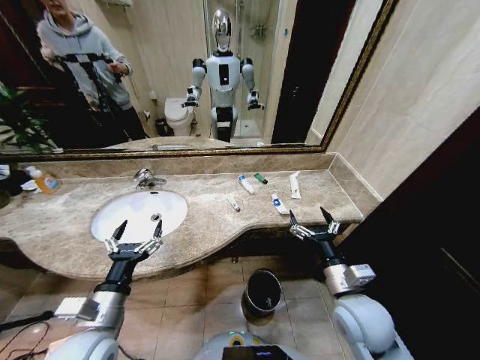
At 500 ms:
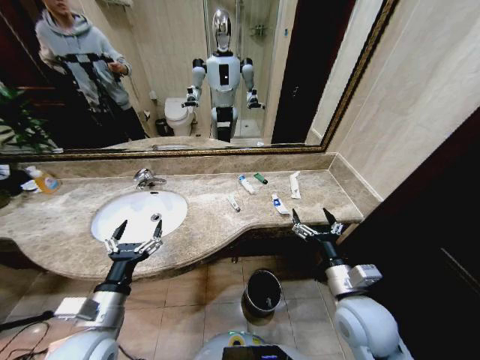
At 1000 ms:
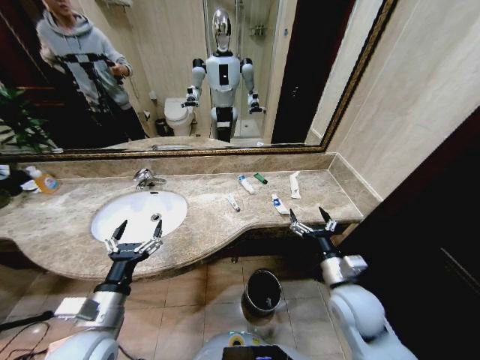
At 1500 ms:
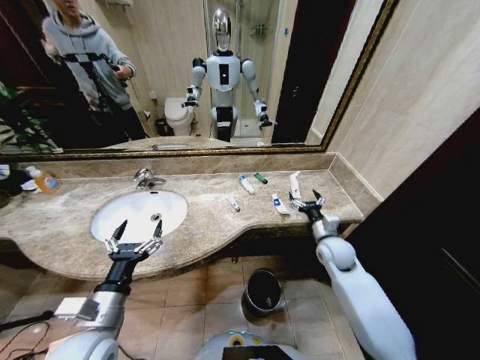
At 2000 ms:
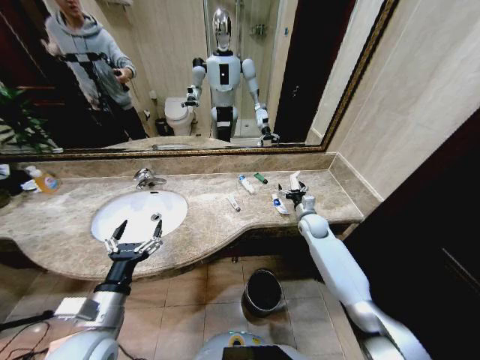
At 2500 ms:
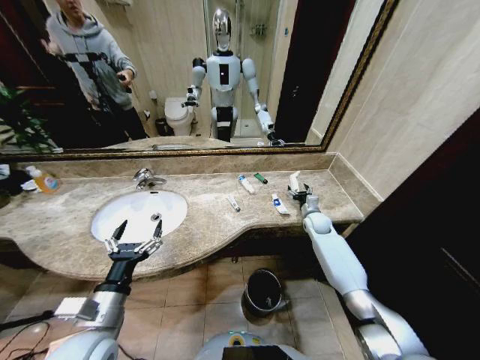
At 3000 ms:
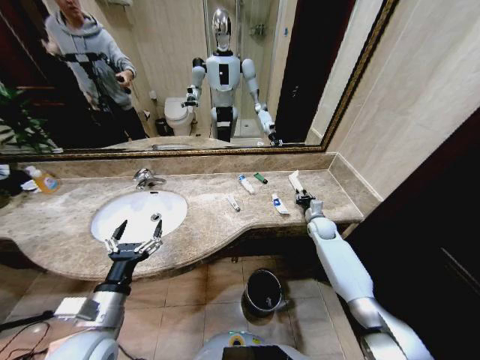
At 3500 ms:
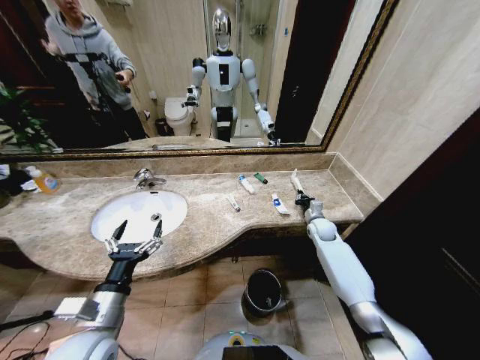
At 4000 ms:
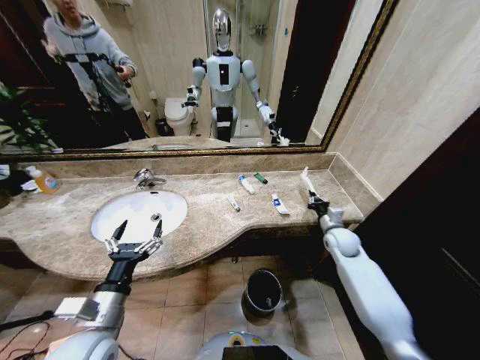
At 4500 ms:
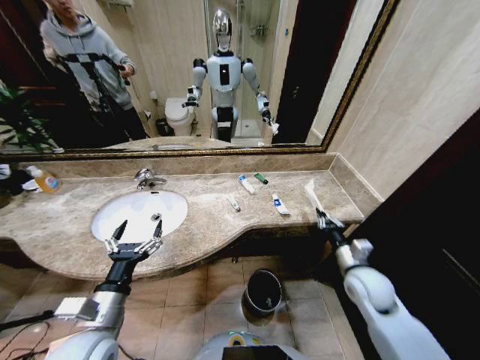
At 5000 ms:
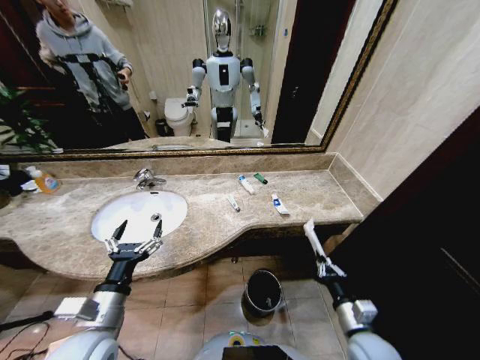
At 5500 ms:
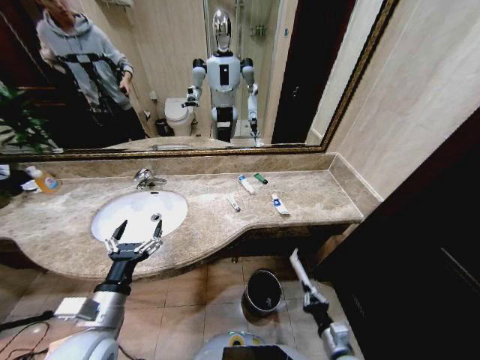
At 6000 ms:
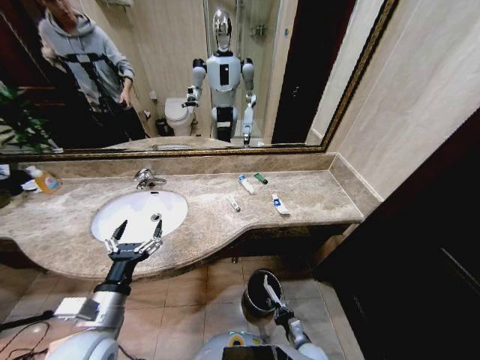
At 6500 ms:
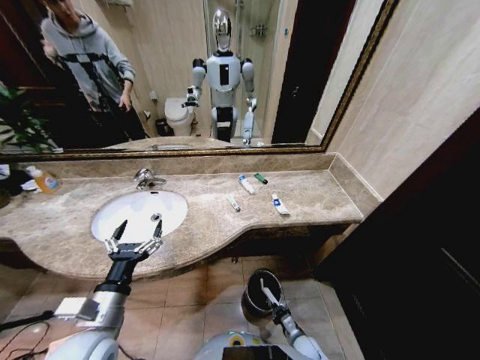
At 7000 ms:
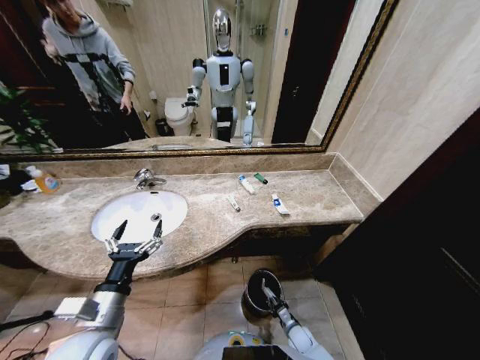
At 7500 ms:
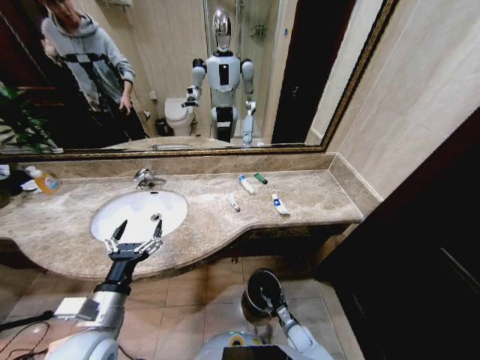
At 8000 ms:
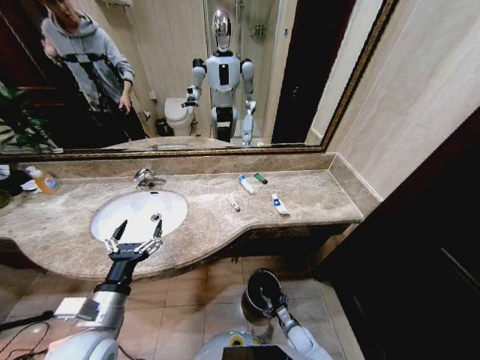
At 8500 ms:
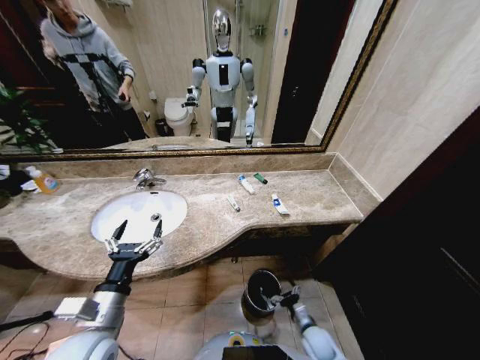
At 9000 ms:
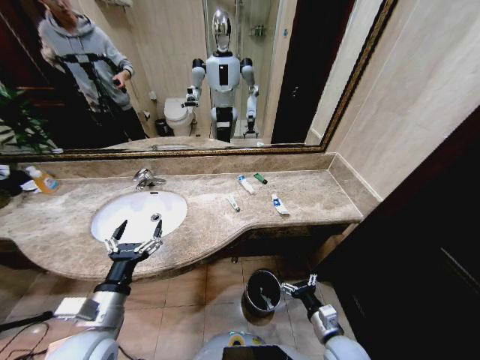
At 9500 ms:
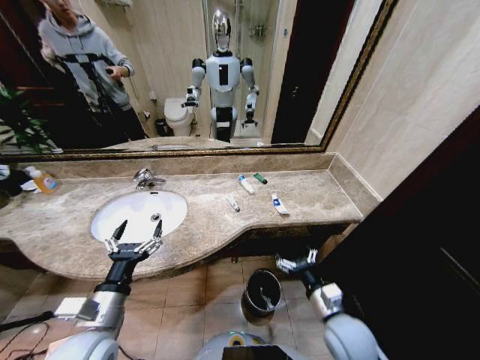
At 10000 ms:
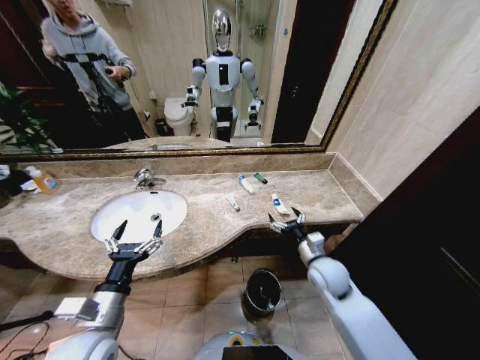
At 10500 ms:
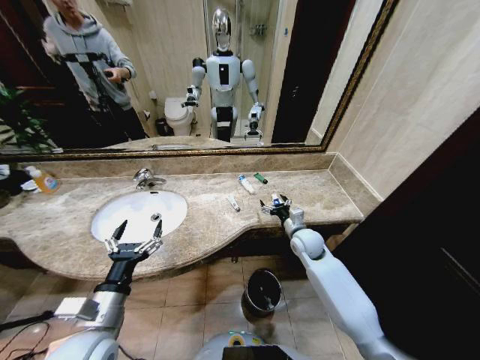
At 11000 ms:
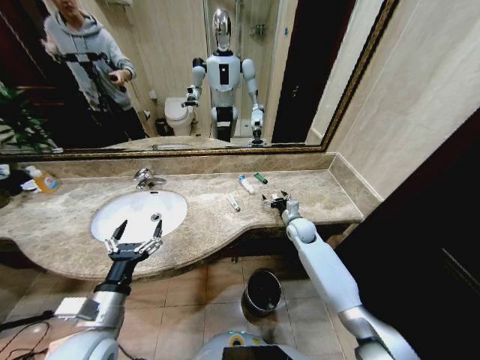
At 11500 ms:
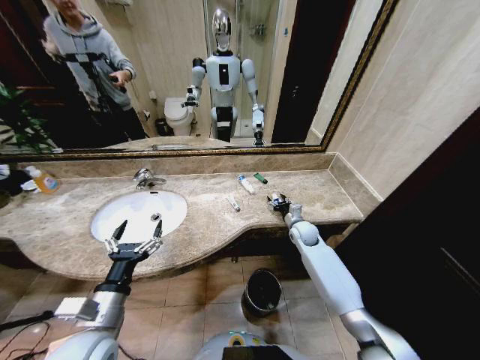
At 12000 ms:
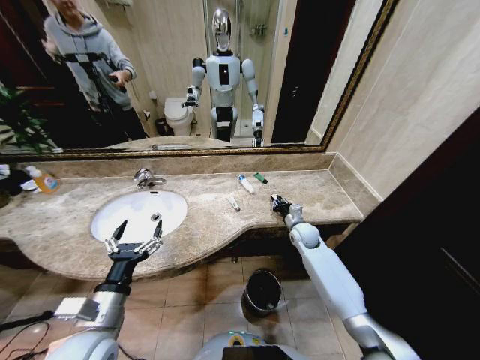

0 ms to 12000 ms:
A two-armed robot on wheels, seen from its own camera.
Task of the whole recording: Pick up the trash from the sink and place it in the trash bin.
2000 ms to 4000 ms: The right gripper heads backward and to the right, covering about 10 cm, and closes.
4000 ms to 6000 ms: The right gripper shifts approximately 40 cm backward, downward and to the left.
6000 ms to 8000 ms: The right gripper travels forward and downward by roughly 10 cm, and opens up.
8000 ms to 10000 ms: The right gripper goes some 35 cm upward.
10000 ms to 12000 ms: The right gripper travels forward by approximately 15 cm, and closes its fingers.

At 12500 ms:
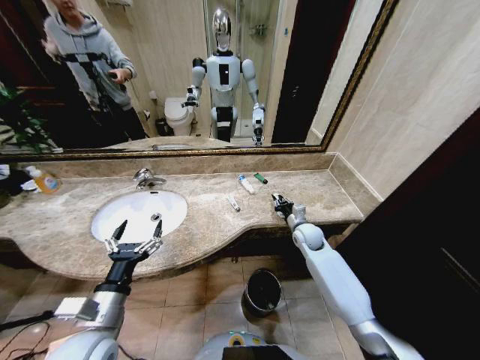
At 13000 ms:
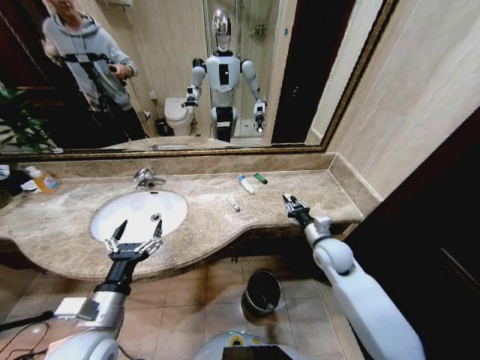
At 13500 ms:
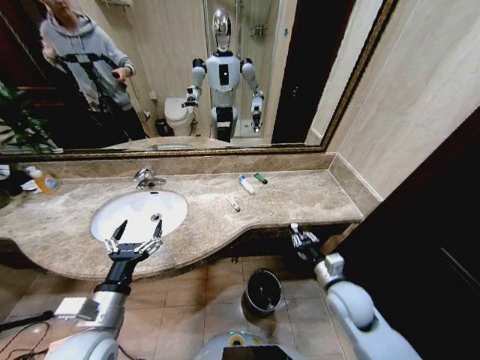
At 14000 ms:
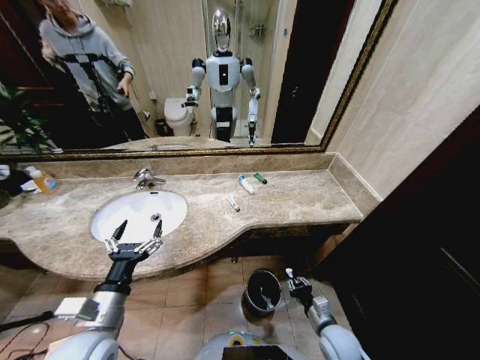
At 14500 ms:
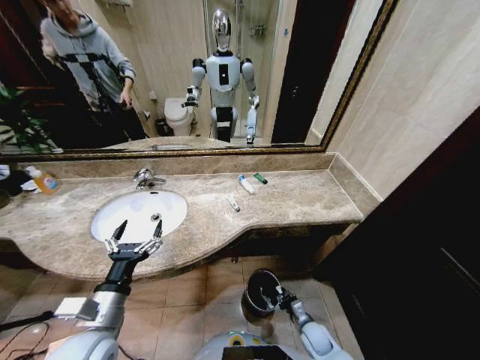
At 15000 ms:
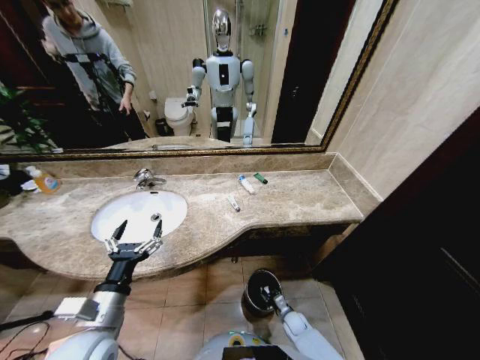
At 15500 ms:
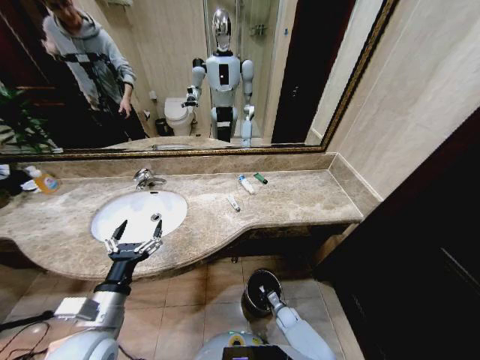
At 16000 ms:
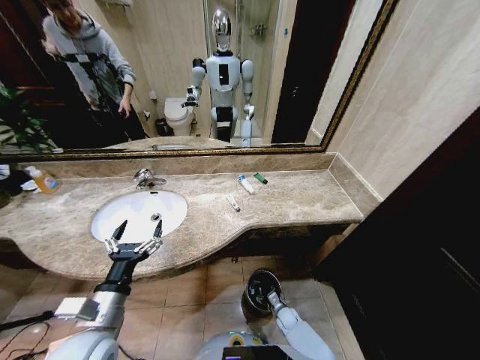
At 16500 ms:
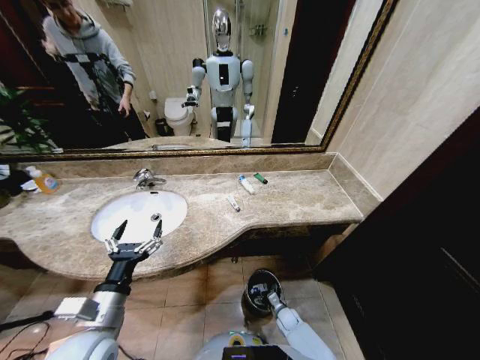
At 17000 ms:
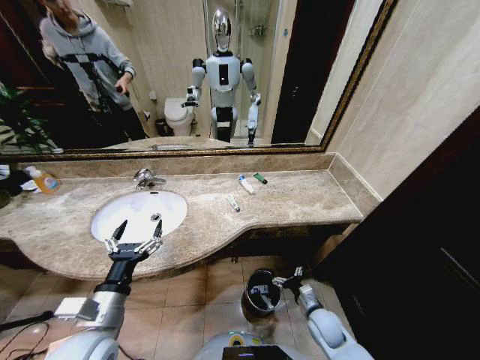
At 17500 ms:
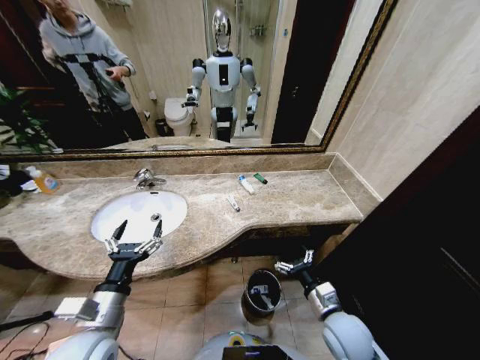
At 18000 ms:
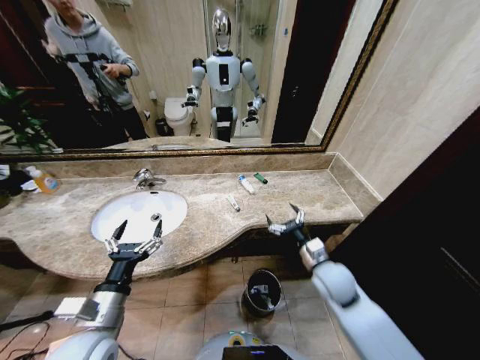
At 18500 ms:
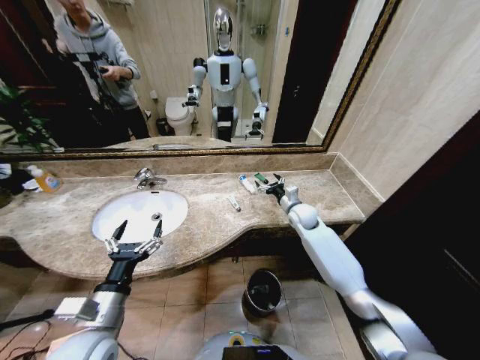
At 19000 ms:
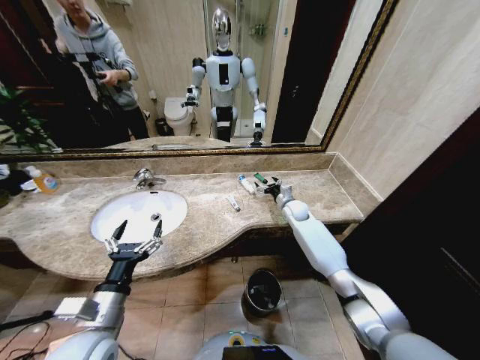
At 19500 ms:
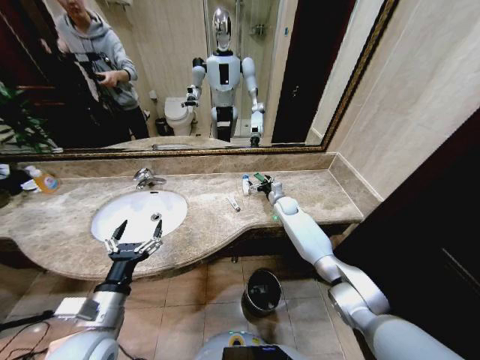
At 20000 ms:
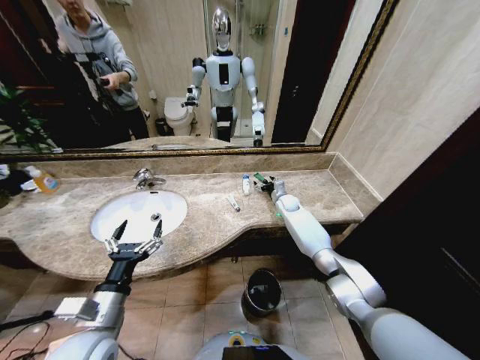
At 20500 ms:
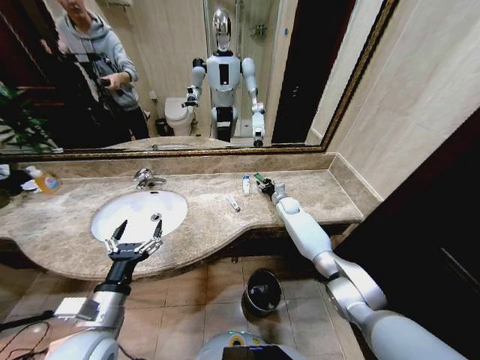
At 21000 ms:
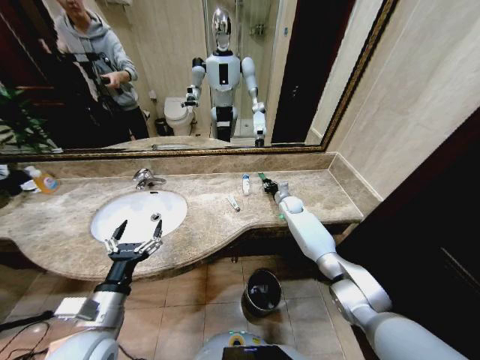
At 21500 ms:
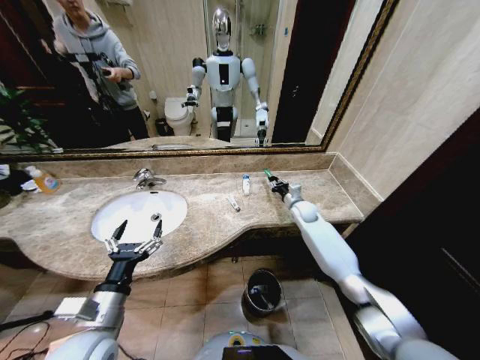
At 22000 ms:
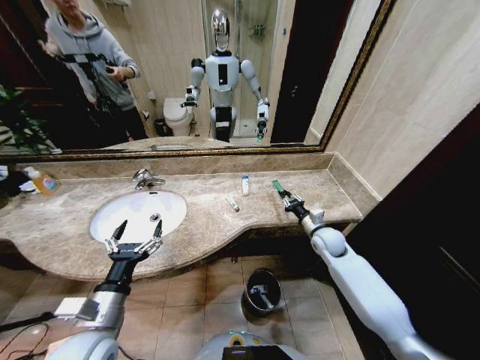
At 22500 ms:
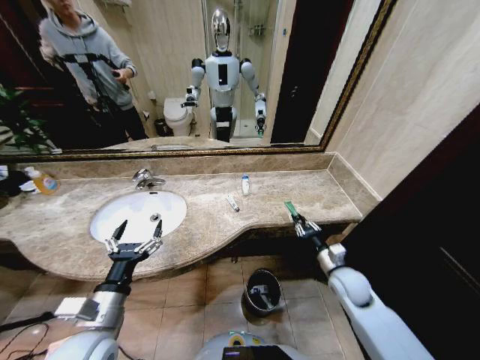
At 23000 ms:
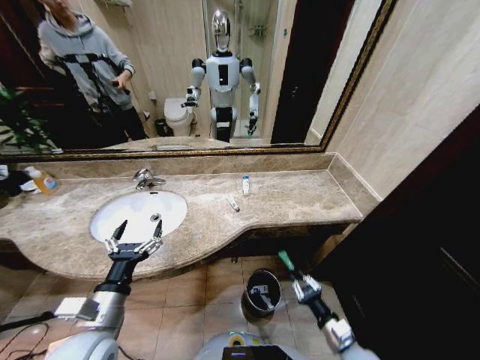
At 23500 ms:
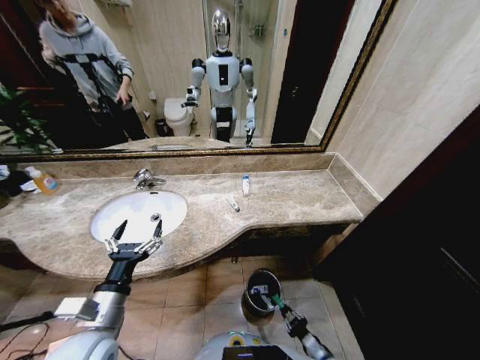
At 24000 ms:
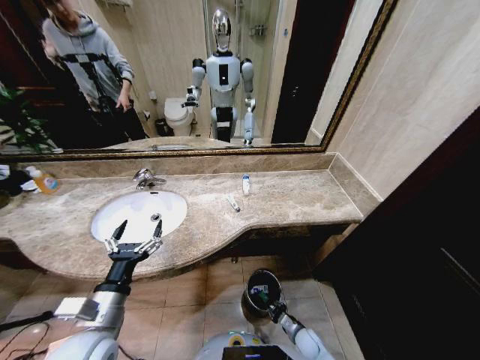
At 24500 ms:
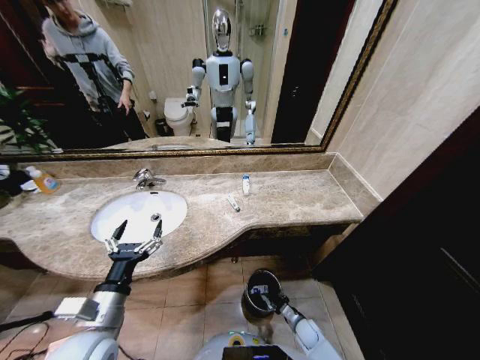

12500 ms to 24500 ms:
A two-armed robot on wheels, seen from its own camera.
Task of the whole recording: Pick up the trash from the sink and place it in the trash bin.
12500 ms to 14500 ms: The right gripper is displaced backward and downward by approximately 35 cm.
14500 ms to 16500 ms: The right gripper goes about 10 cm downward, forward and to the left, and opens up.
16500 ms to 18500 ms: The right gripper goes about 40 cm upward and forward.
18500 ms to 20500 ms: The right gripper heads forward and downward, covering approximately 15 cm, and closes up.
20500 ms to 22500 ms: The right gripper travels backward by approximately 30 cm, and closes.
22500 ms to 24500 ms: The right gripper shifts some 30 cm downward.

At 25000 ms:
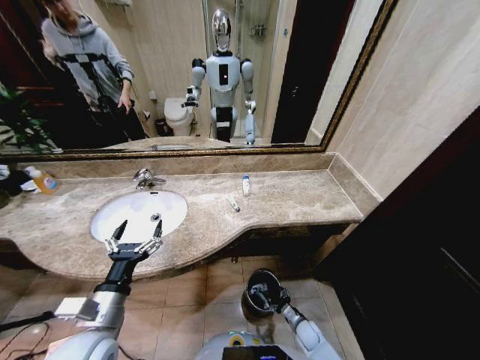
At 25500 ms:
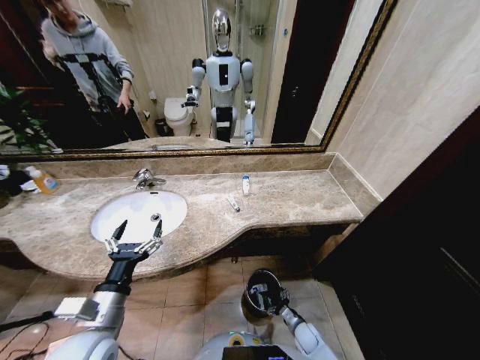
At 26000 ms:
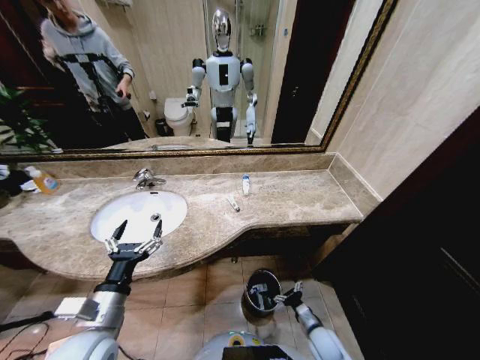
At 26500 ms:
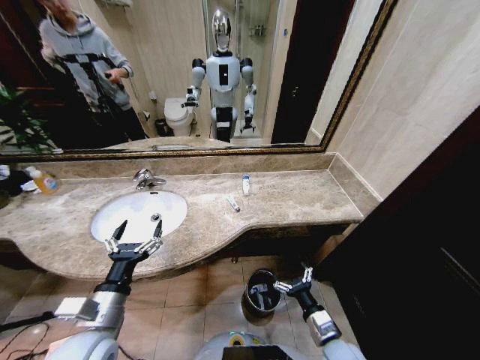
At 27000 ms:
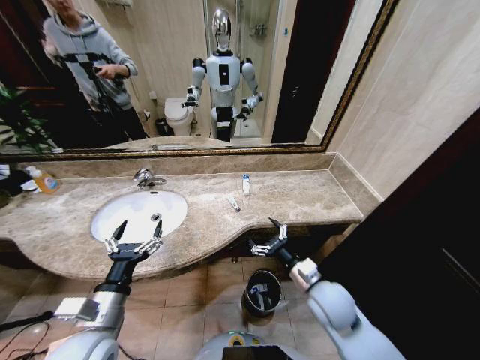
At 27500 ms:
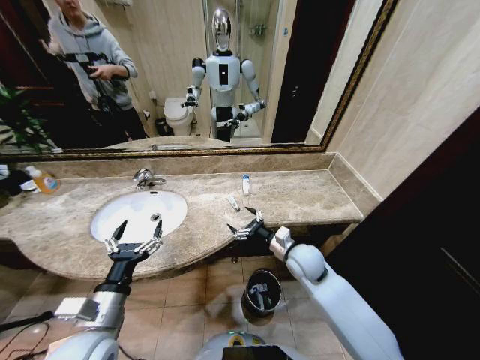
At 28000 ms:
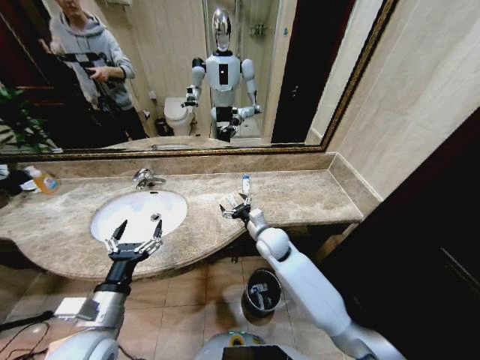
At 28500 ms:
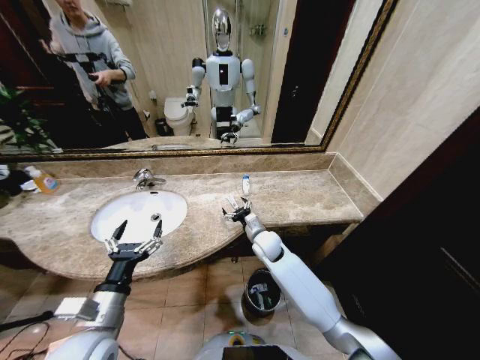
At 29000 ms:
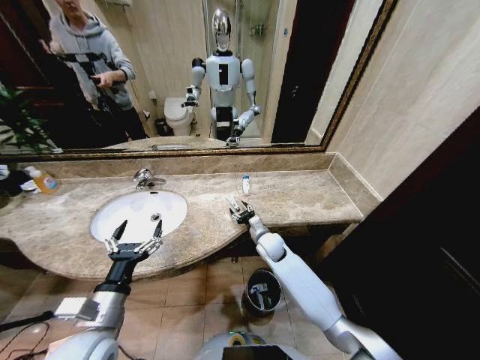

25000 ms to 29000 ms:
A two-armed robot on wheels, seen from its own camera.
Task of the whole recording: Pick up the trash from the sink and place it in the trash bin.
25000 ms to 27000 ms: The right gripper moves upward, some 35 cm.
27000 ms to 29000 ms: The right gripper travels forward and to the left by roughly 20 cm.
